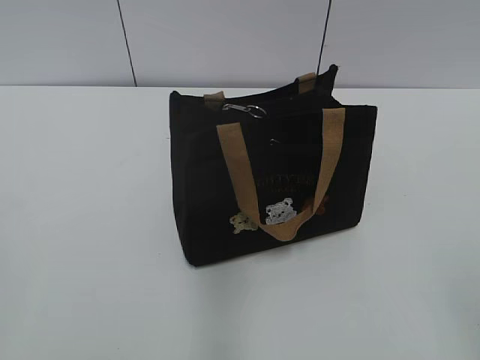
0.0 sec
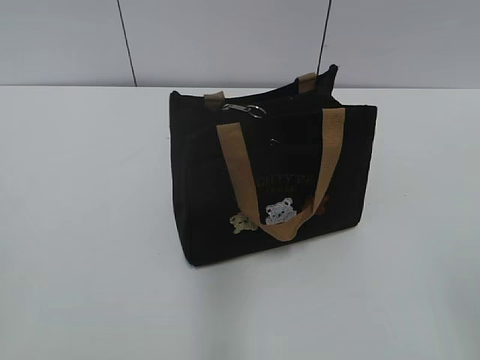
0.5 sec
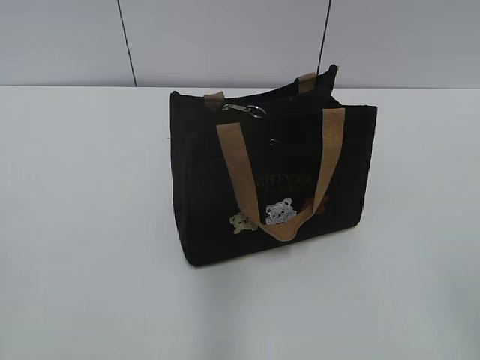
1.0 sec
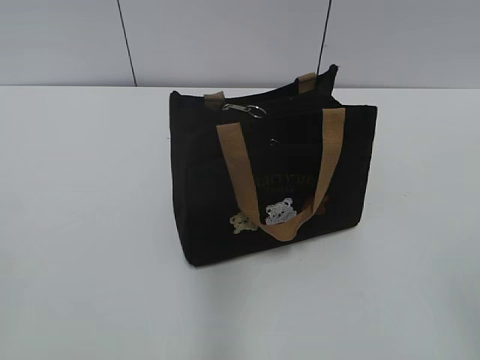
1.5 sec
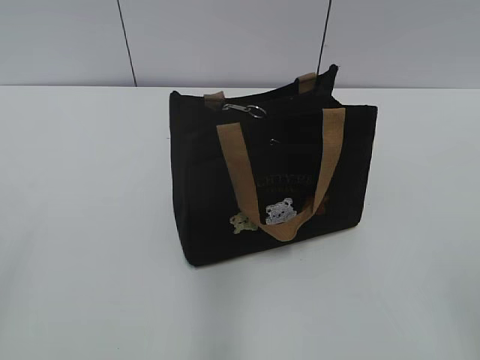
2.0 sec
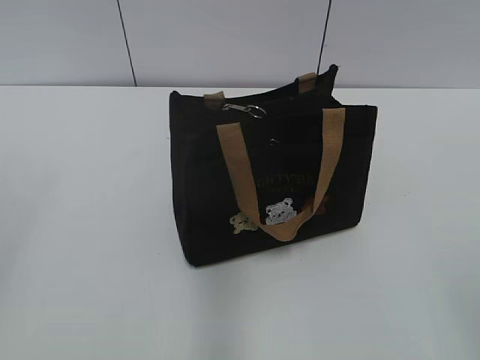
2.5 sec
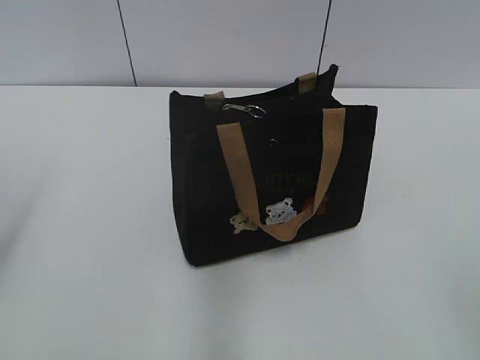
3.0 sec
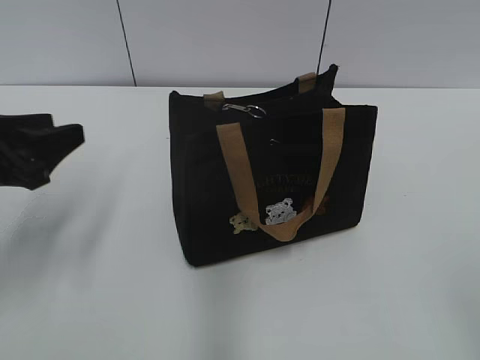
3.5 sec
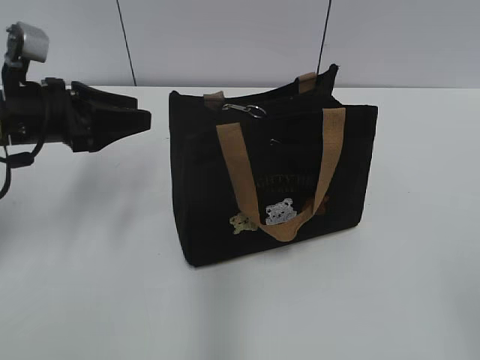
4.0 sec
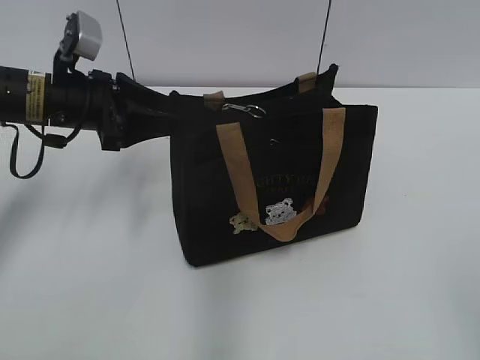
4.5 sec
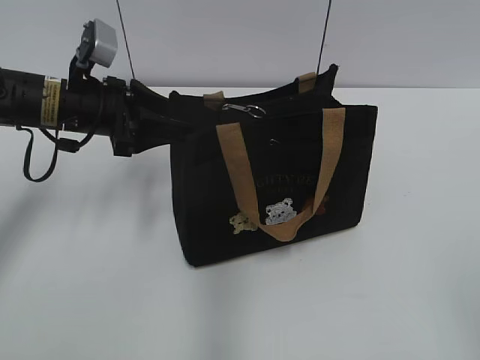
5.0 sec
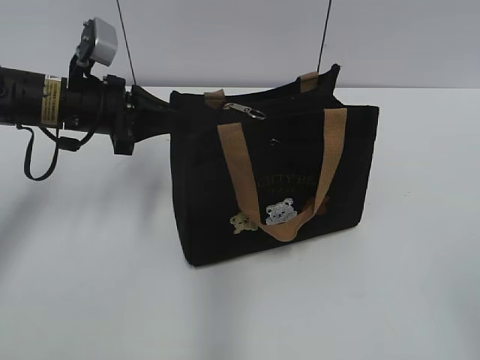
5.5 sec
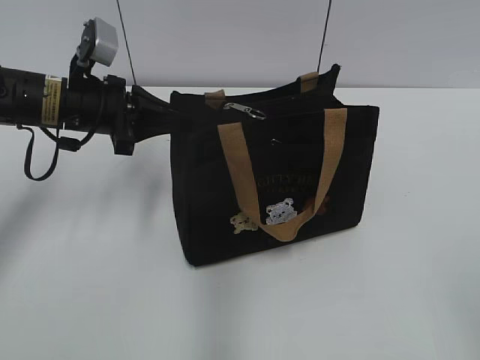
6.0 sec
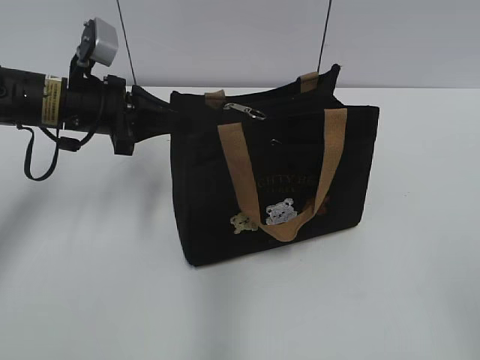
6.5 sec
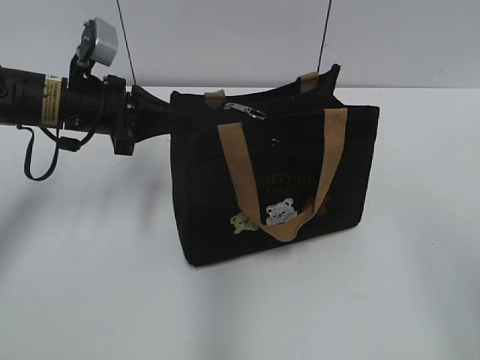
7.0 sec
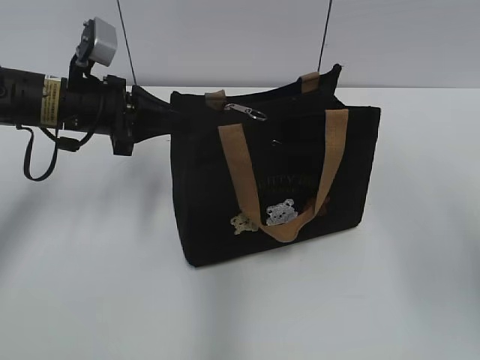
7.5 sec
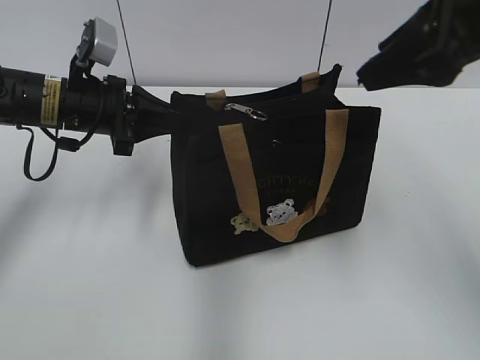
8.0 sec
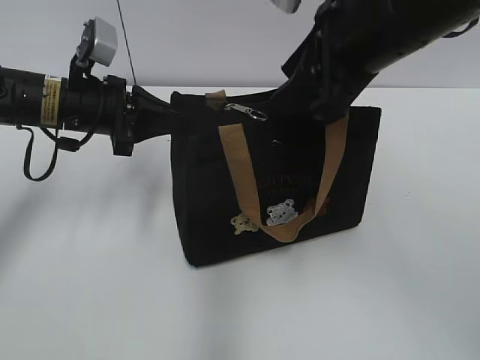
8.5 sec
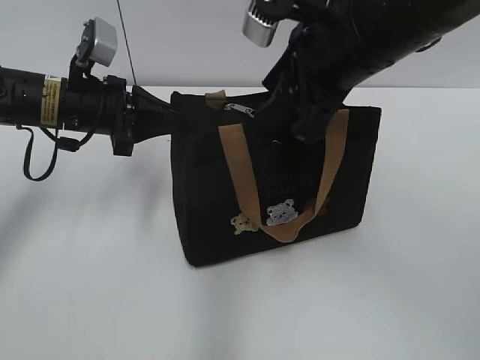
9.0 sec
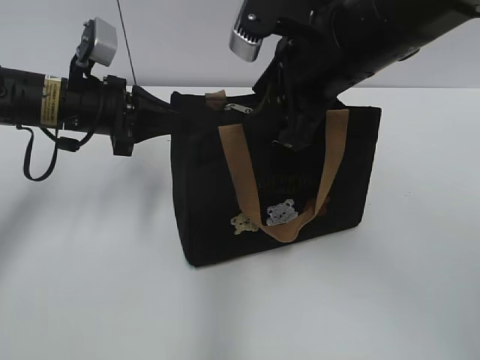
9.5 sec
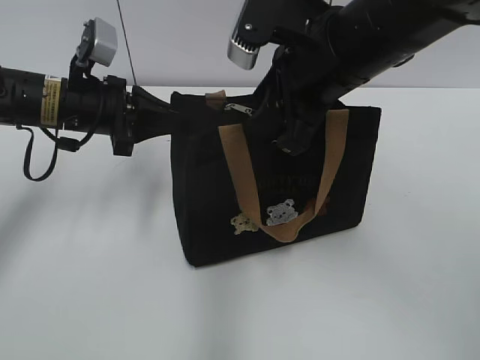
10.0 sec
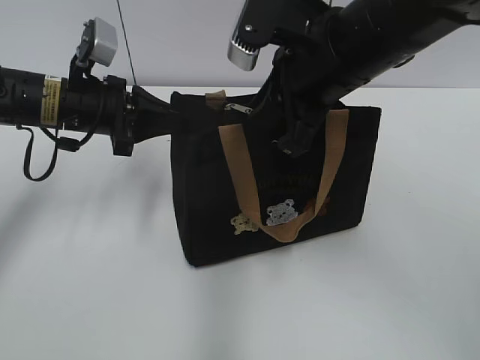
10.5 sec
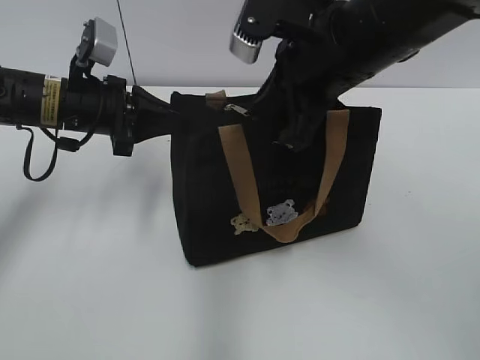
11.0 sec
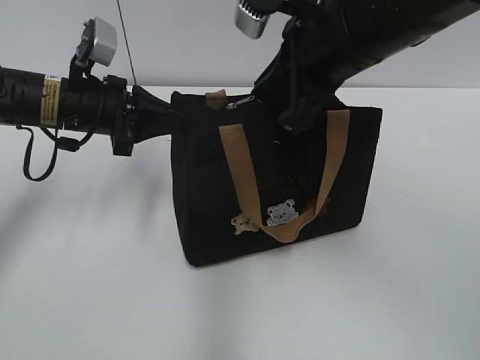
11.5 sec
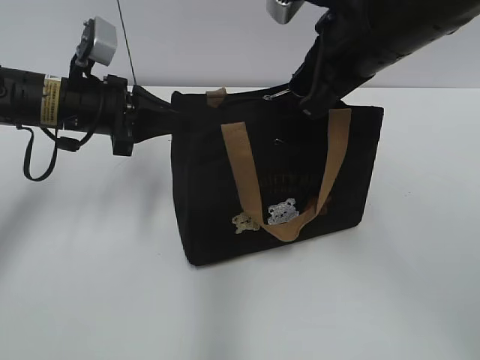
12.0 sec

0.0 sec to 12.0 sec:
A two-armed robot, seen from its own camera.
2.0 sec to 4.0 sec: The left gripper shifts about 35 cm forward.
4.0 sec to 6.0 sec: The left gripper changes place by about 5 cm, and closes its fingers.
6.0 sec to 8.0 sec: The right gripper is displaced forward by some 25 cm.
8.0 sec to 10.0 sec: The right gripper is displaced to the left and downward by about 10 cm.
10.0 sec to 12.0 sec: The right gripper closes.

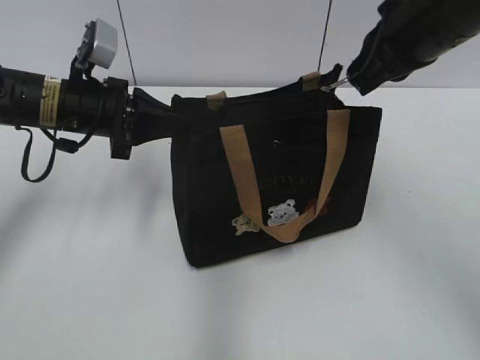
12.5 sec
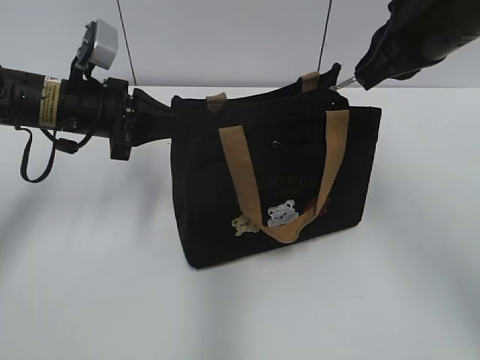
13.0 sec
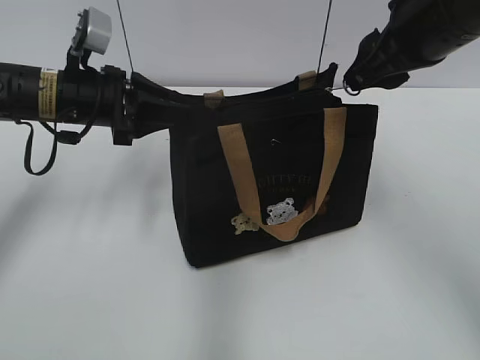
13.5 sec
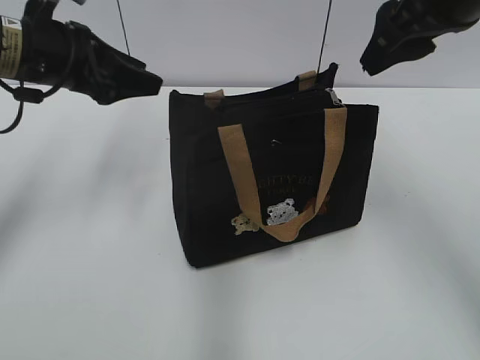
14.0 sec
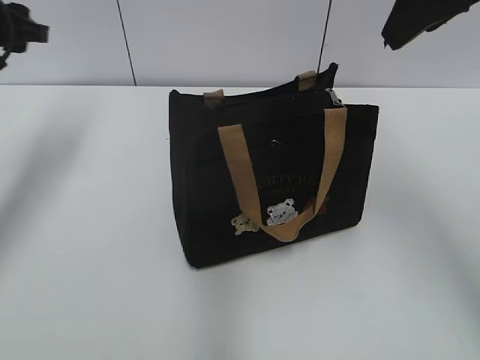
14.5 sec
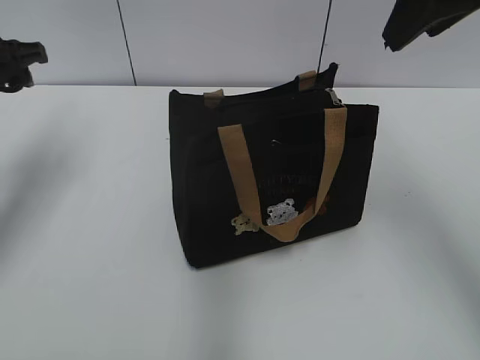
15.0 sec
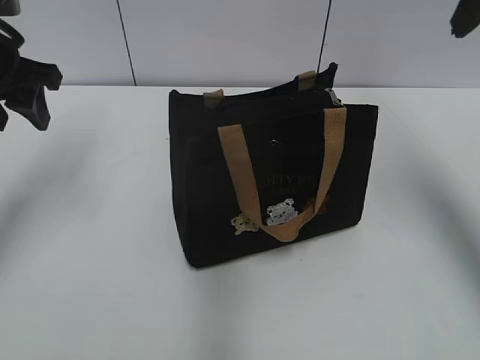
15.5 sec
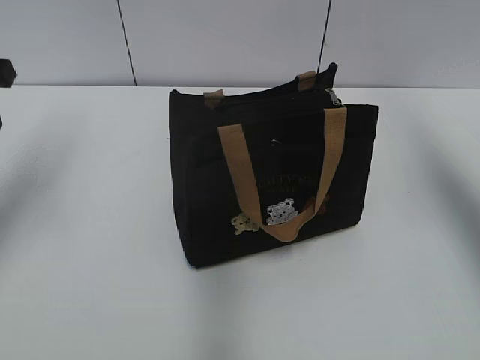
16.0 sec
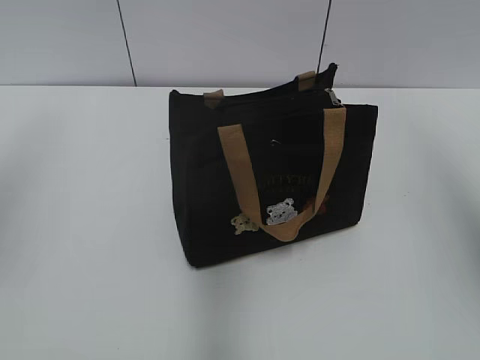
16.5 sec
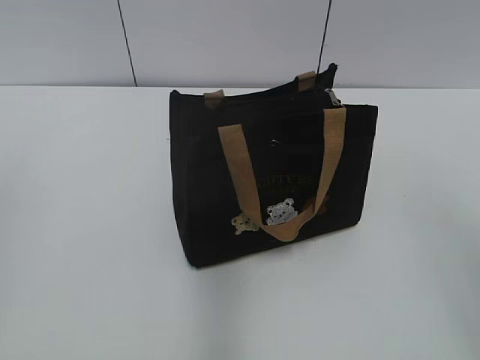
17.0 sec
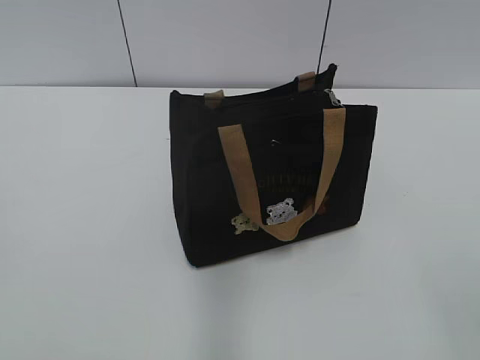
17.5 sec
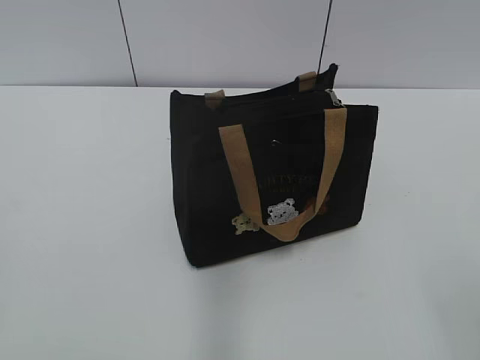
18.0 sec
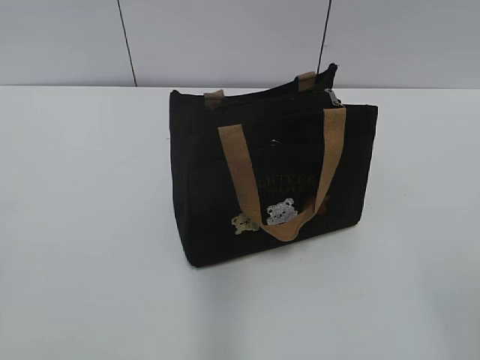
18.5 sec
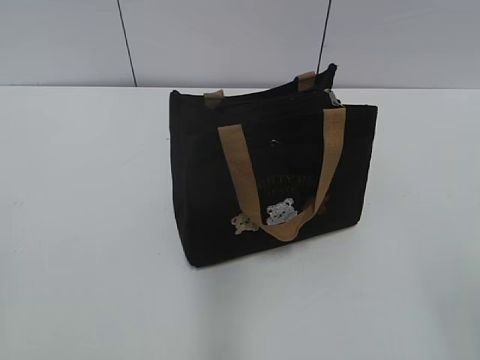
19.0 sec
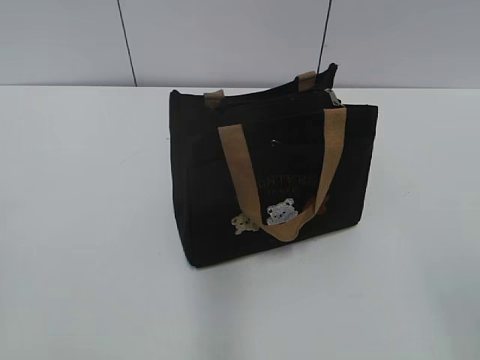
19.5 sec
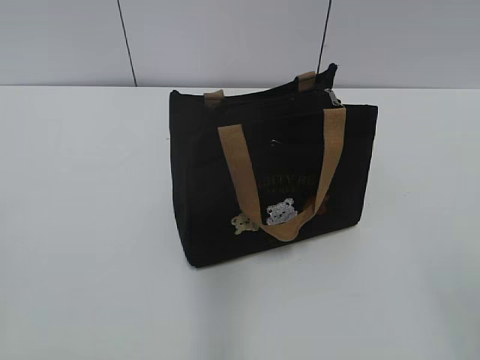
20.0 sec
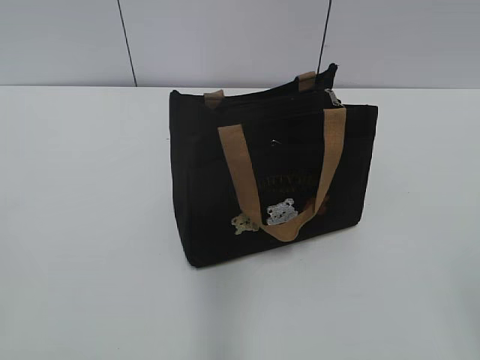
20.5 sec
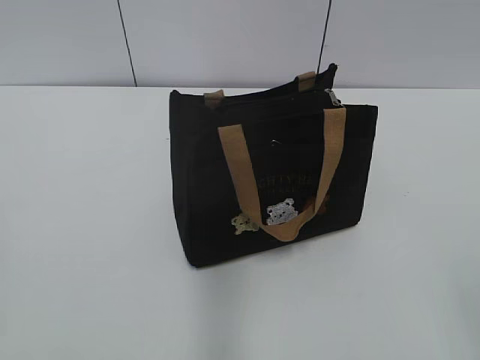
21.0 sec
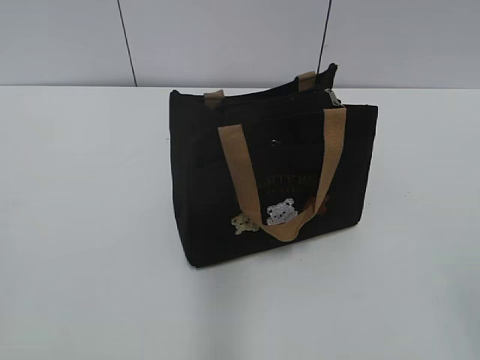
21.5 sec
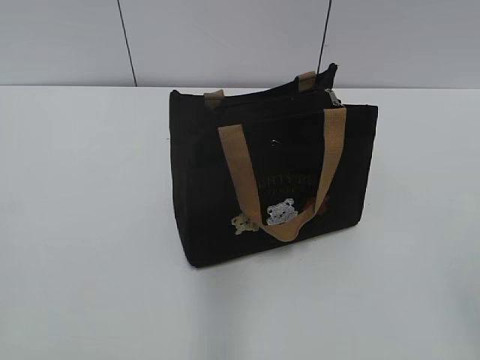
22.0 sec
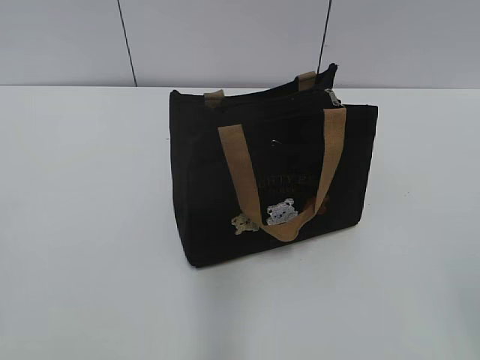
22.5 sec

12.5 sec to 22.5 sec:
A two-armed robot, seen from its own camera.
12.5 sec to 14.5 sec: The left gripper heads to the left and upward, covering some 10 cm, and opens up; the right gripper goes roughly 10 cm upward, and opens its fingers.
14.5 sec to 16.5 sec: The left gripper is displaced backward and upward by roughly 20 cm. The right gripper heads backward, to the right and upward, covering approximately 15 cm.
16.5 sec to 18.5 sec: Both grippers travel together backward and downward, some 25 cm.
